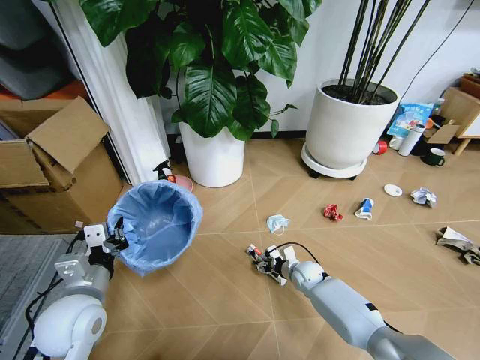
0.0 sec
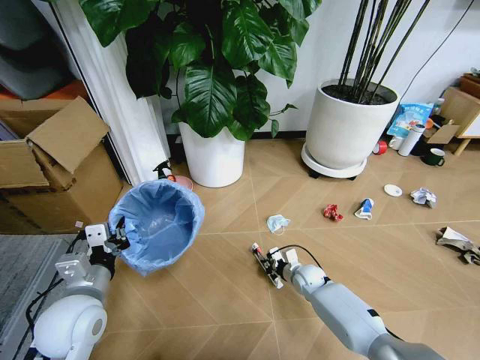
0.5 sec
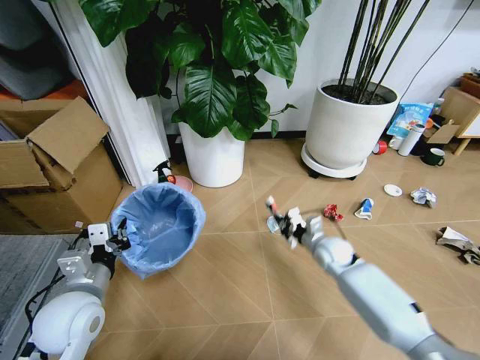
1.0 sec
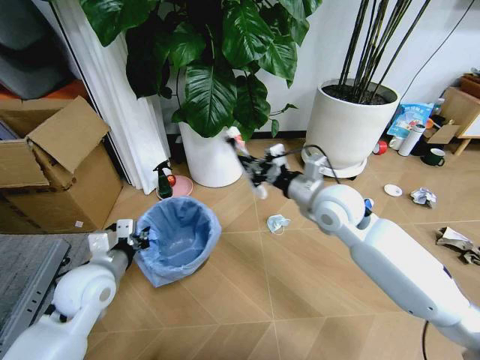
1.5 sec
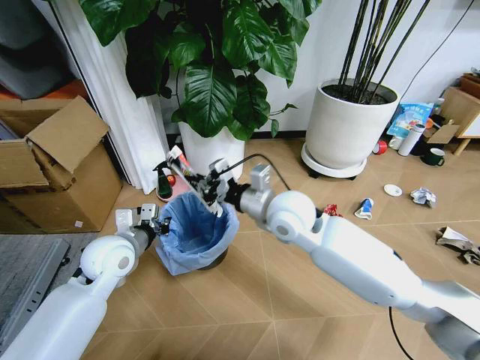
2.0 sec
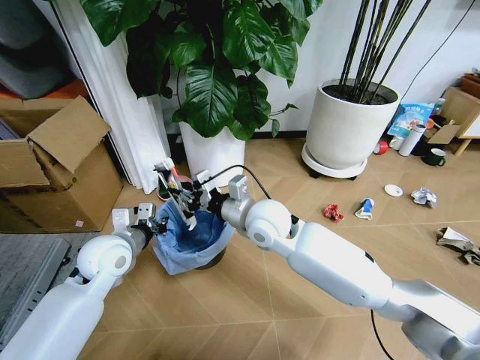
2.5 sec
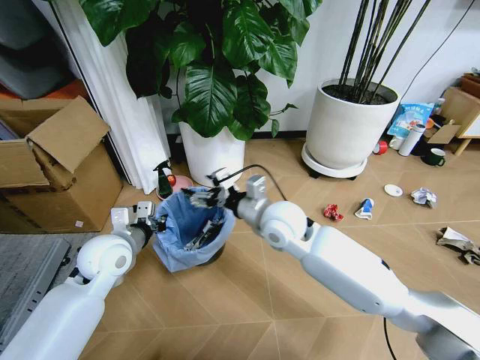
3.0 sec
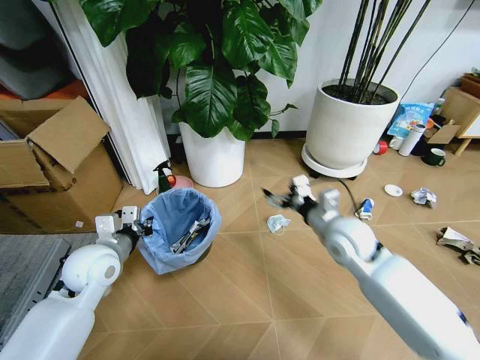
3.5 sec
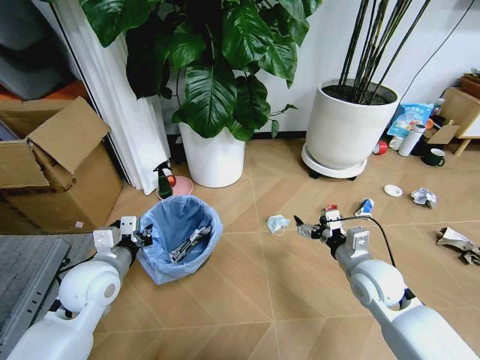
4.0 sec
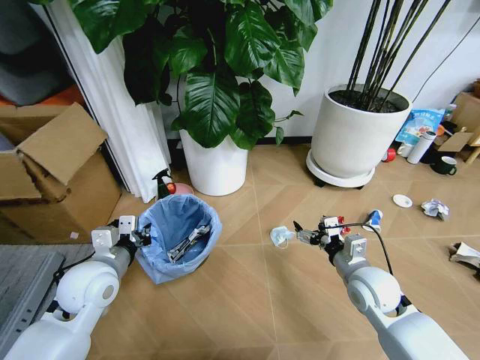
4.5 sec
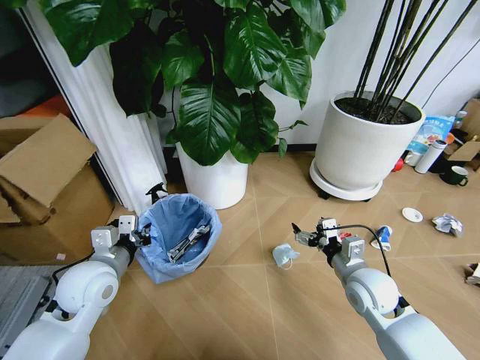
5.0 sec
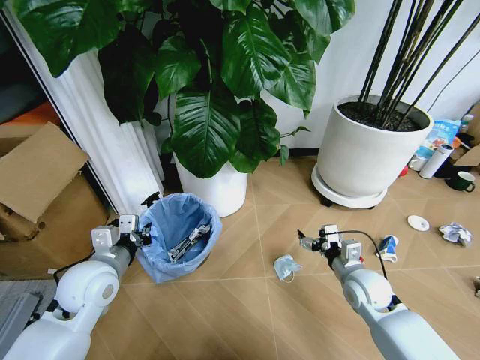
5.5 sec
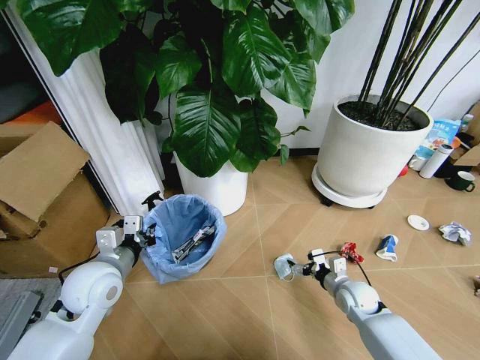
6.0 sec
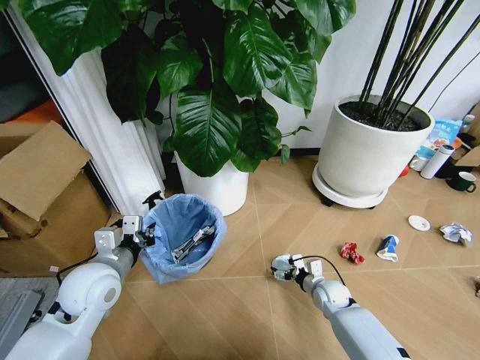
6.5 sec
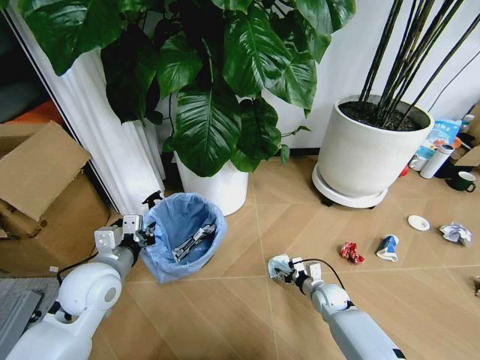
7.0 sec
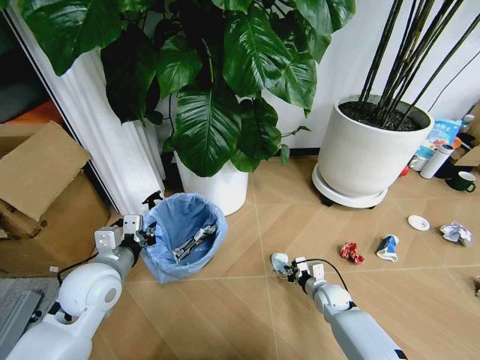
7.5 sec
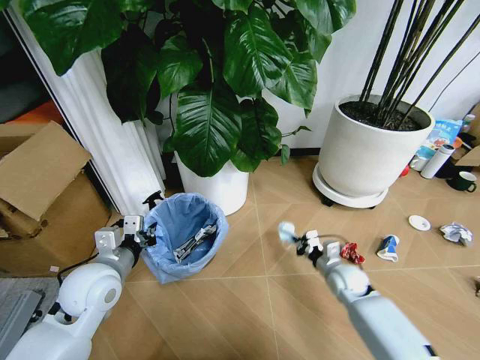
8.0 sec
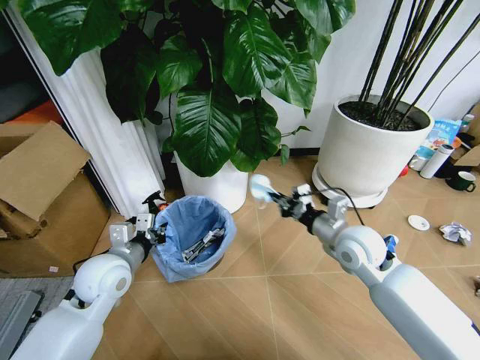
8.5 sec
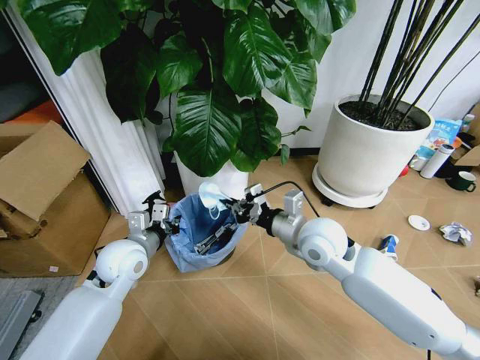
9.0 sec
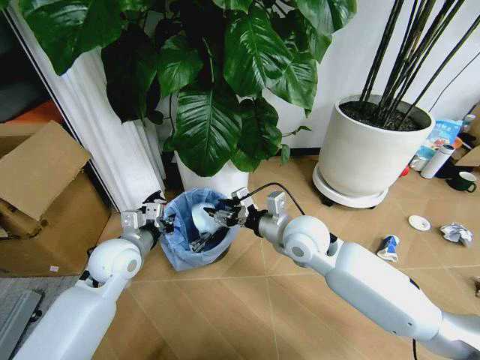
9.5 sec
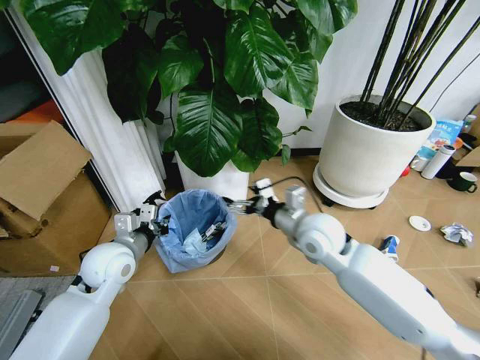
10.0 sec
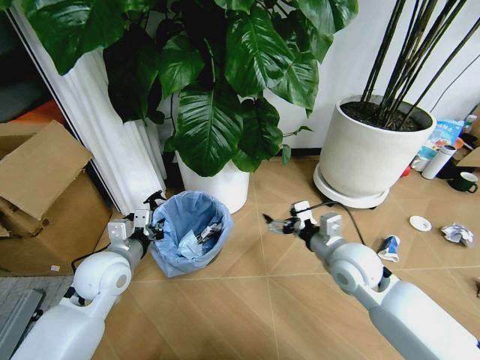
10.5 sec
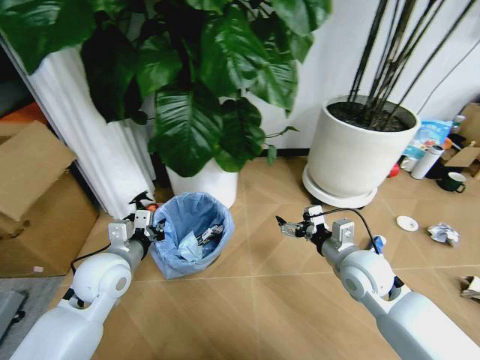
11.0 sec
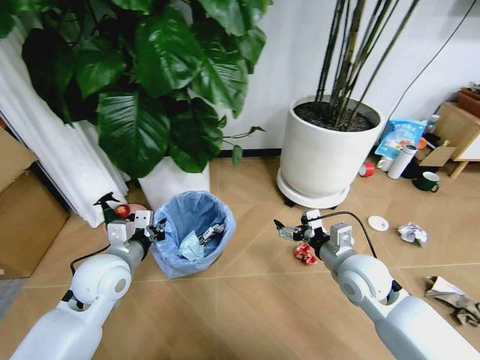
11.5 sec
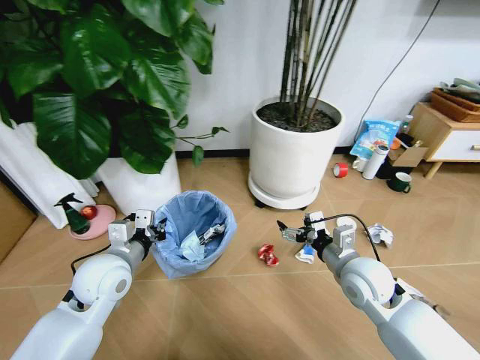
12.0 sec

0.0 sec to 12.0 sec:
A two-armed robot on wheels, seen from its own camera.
Task of the whole recording: Pick up the trash bin and place the garbage on the floor into it.
0.0 sec to 2.0 sec: The right gripper heads upward, covering about 35 cm, and closes its fingers; the left gripper travels forward by approximately 10 cm.
2.0 sec to 4.0 sec: The left gripper heads backward, covering about 5 cm. Meanwhile the right gripper goes about 25 cm to the right, downward and backward, and opens up.
4.0 sec to 6.0 sec: The right gripper moves downward, roughly 15 cm.
6.0 sec to 8.0 sec: The right gripper moves about 5 cm downward and comes back, and closes up.
8.0 sec to 10.0 sec: The left gripper goes about 5 cm forward. The right gripper travels upward and to the left by roughly 25 cm, and opens.
10.0 sec to 12.0 sec: The right gripper moves to the right, backward and downward, roughly 15 cm.

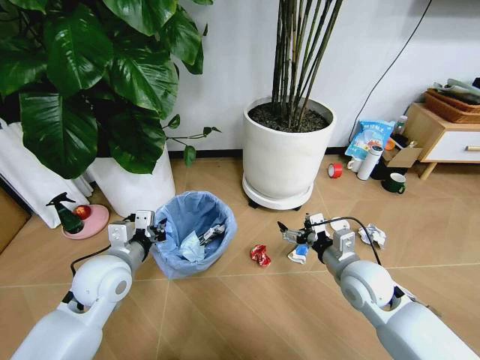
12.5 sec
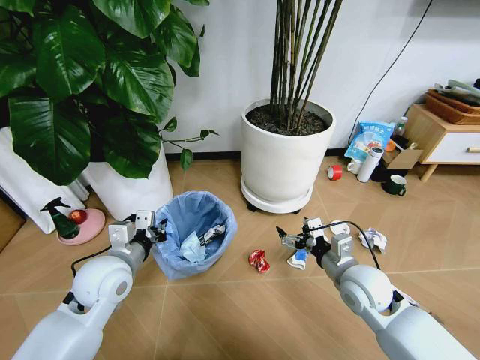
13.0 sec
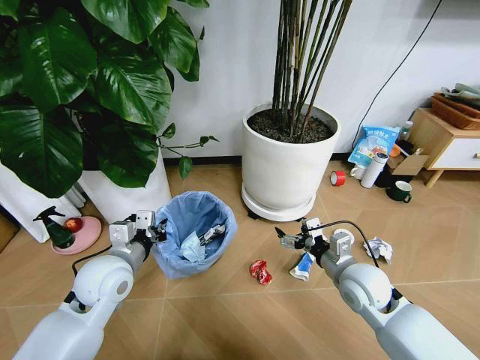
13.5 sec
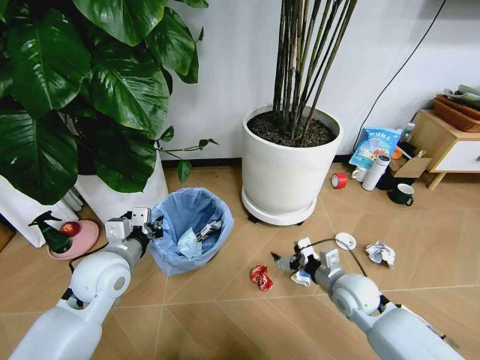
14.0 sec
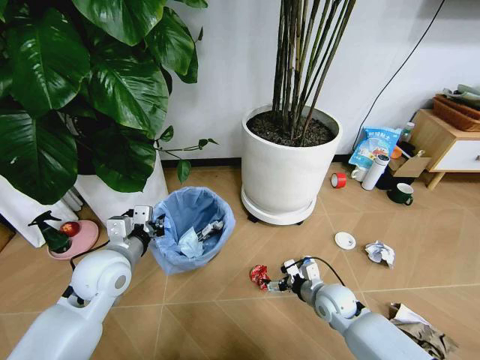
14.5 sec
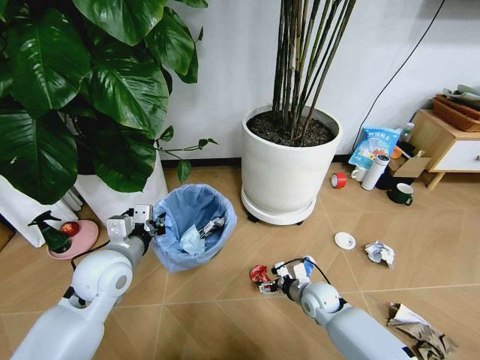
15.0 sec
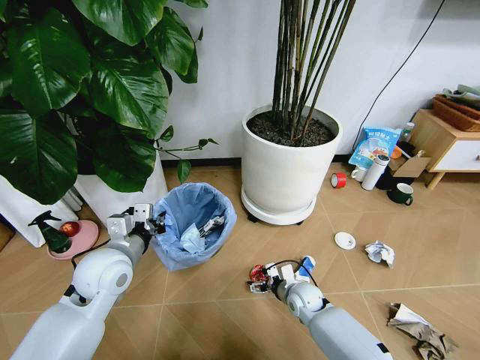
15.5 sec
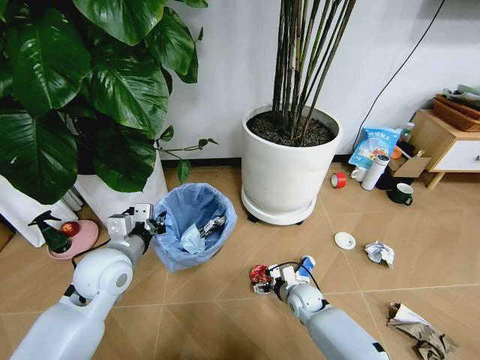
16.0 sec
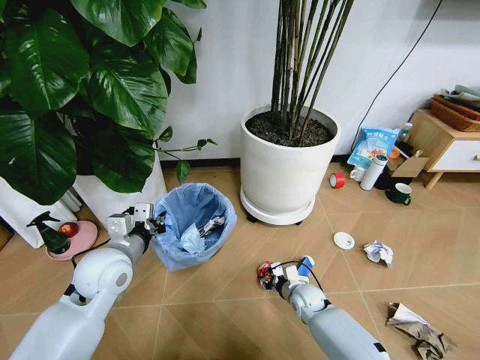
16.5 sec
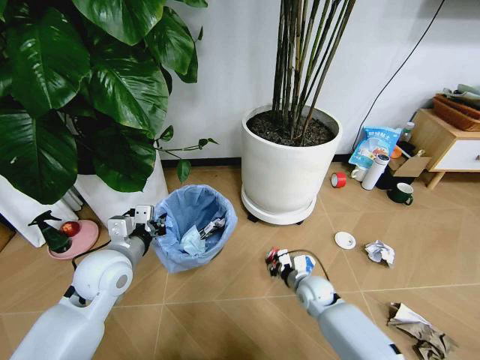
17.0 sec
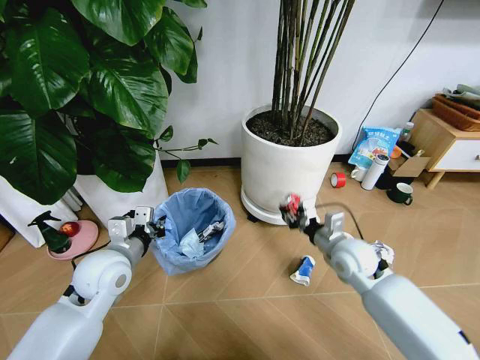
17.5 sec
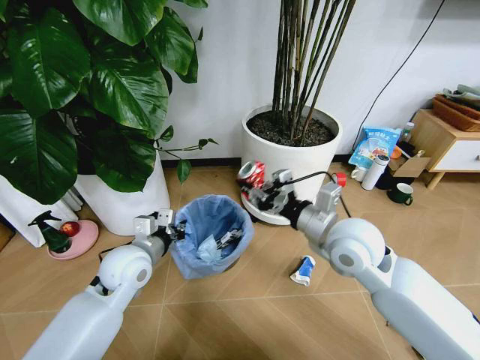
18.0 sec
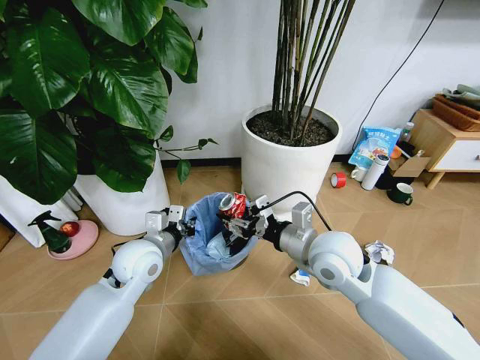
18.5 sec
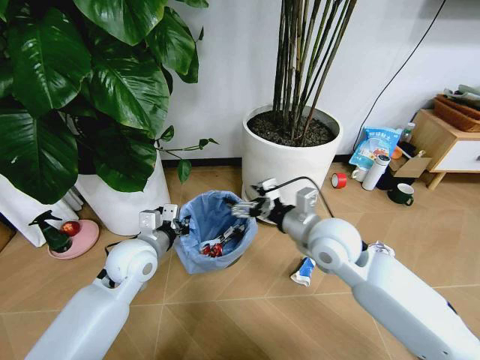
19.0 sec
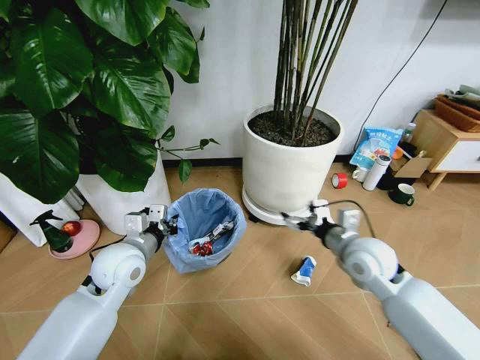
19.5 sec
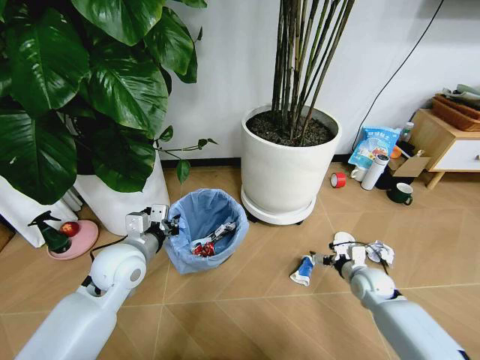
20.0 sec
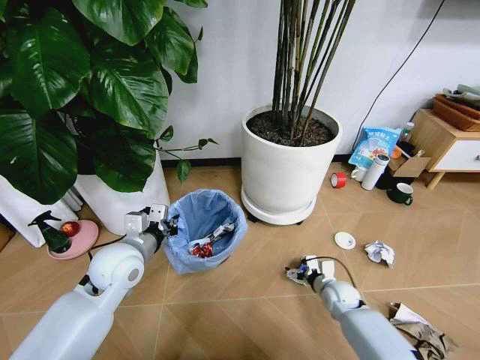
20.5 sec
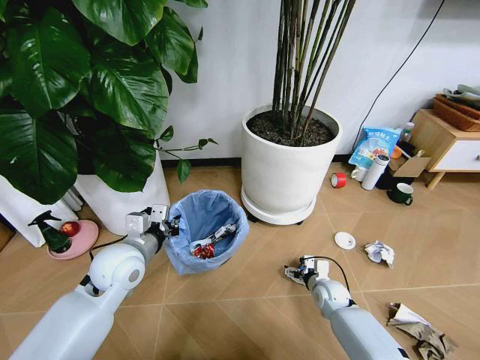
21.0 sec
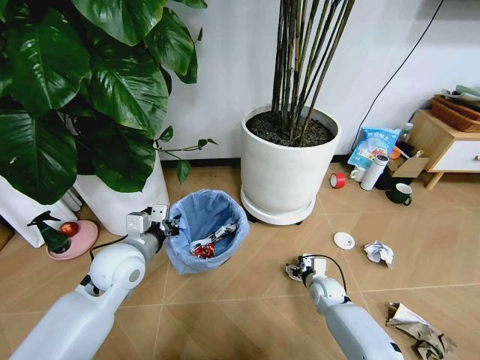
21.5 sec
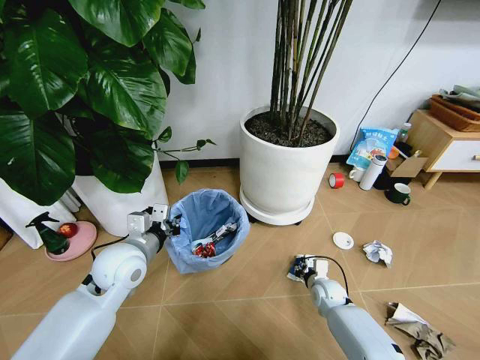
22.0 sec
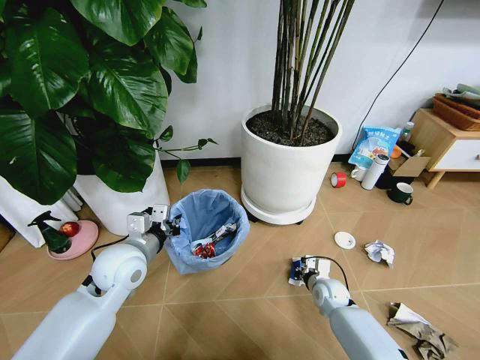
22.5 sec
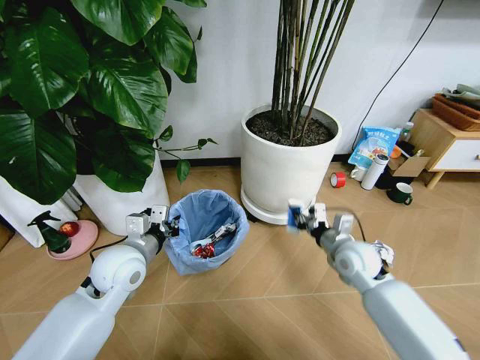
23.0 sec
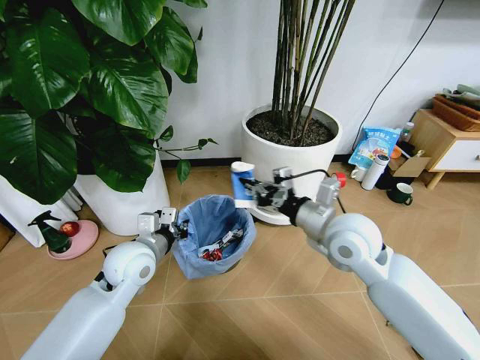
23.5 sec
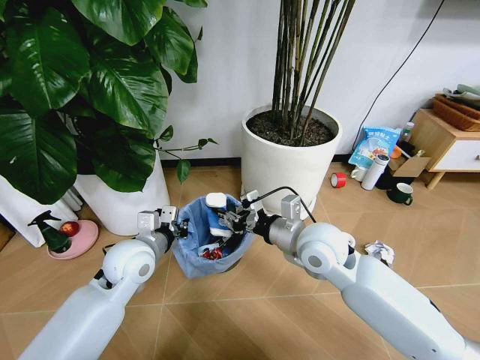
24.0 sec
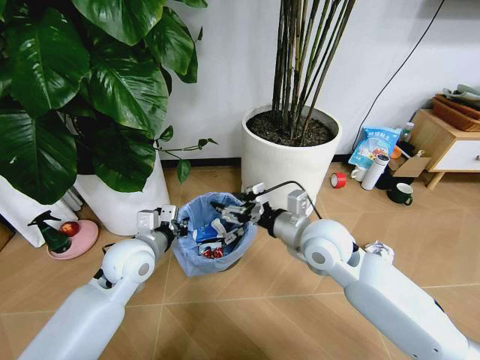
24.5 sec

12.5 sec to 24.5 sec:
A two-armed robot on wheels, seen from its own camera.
Task of the whole recording: Pick up the trash bin and place the garbage on the floor into it.
12.5 sec to 14.5 sec: The right gripper travels downward by about 15 cm.
14.5 sec to 16.5 sec: The right gripper goes approximately 10 cm downward, and closes.
16.5 sec to 18.5 sec: The left gripper changes place by roughly 5 cm; the right gripper moves upward, about 30 cm.
18.5 sec to 20.5 sec: The right gripper moves downward and to the right, about 35 cm, and opens its fingers.
20.5 sec to 22.5 sec: The right gripper closes up.
22.5 sec to 24.5 sec: The right gripper travels upward by approximately 30 cm, and opens up.

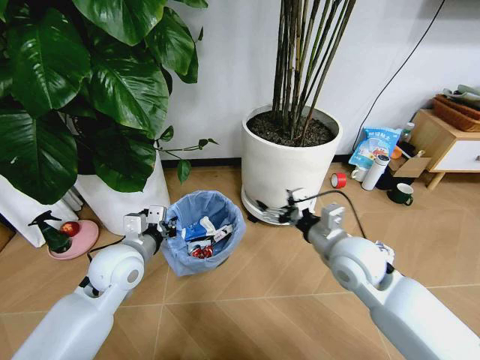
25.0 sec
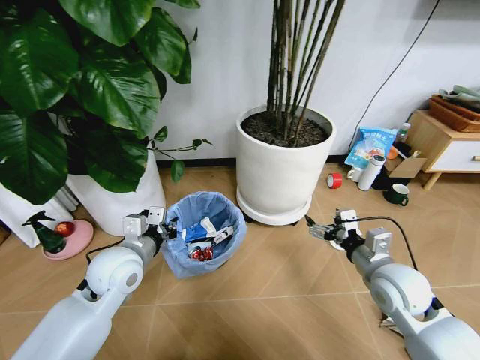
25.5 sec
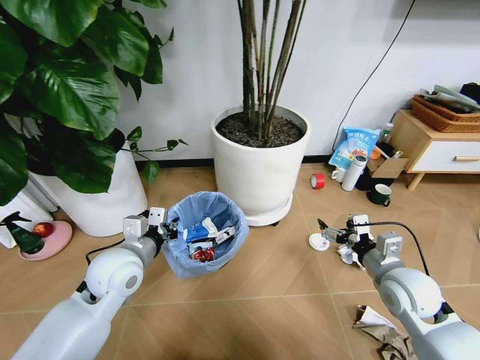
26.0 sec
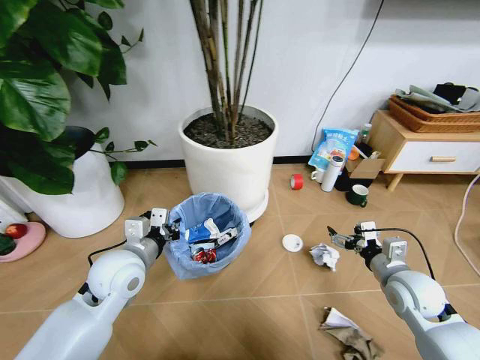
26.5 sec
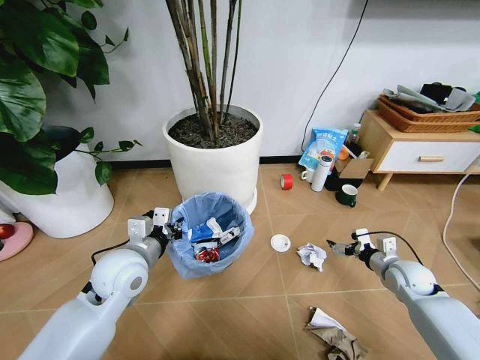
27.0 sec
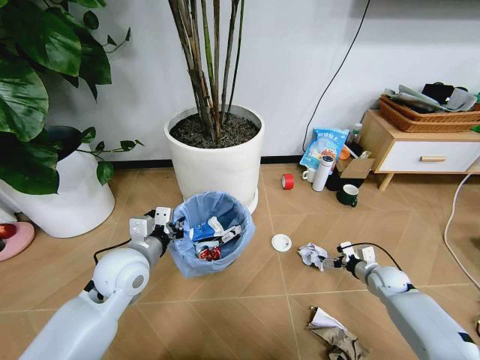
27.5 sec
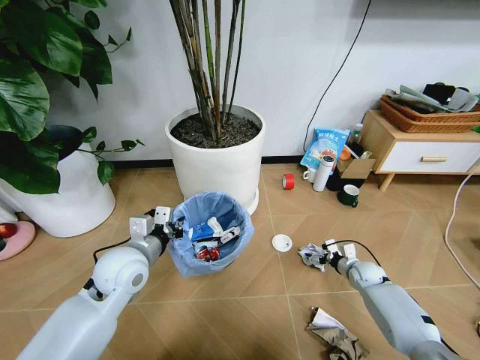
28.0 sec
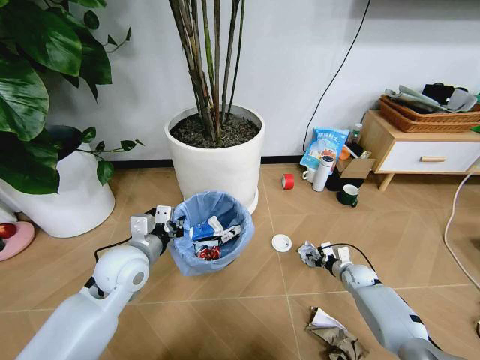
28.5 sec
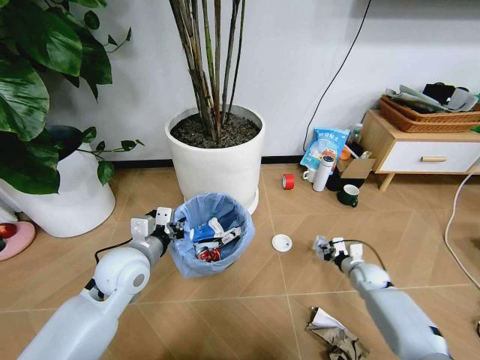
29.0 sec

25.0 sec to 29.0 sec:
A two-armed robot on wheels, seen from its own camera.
Task of the whole recording: Pick up the trash bin and place the garbage on the floor into it.
25.0 sec to 27.0 sec: The right gripper travels to the right and downward by about 25 cm.
27.0 sec to 29.0 sec: The right gripper goes some 10 cm downward, and closes its fingers.
